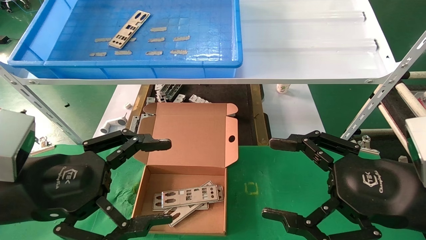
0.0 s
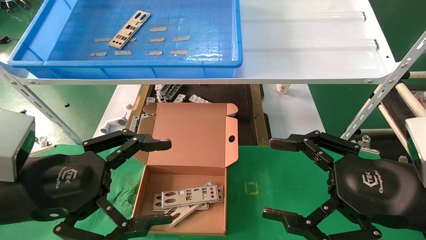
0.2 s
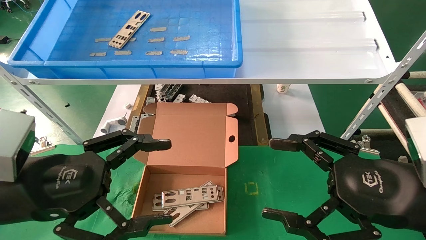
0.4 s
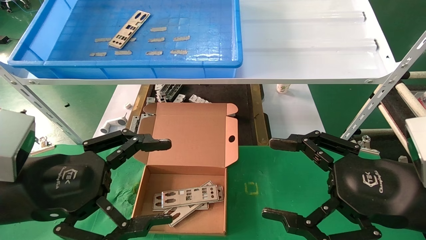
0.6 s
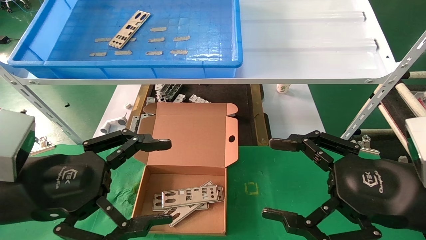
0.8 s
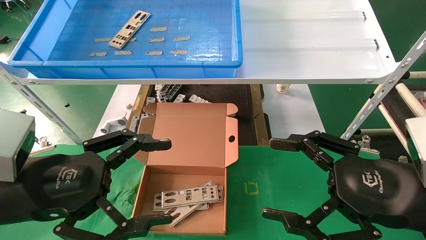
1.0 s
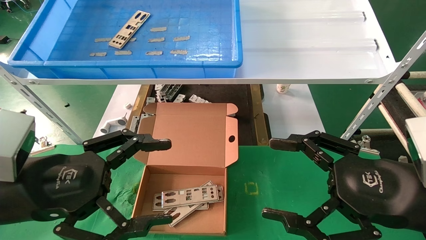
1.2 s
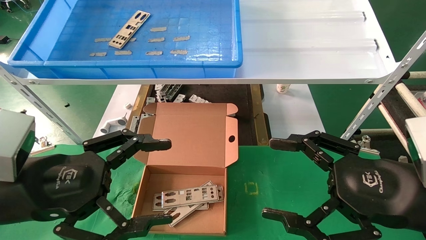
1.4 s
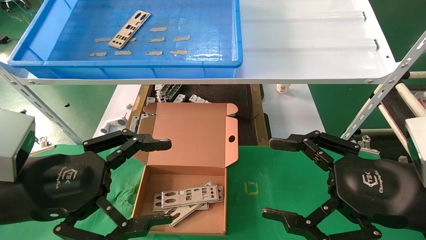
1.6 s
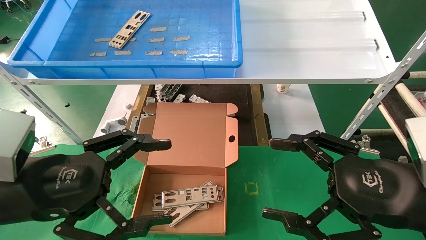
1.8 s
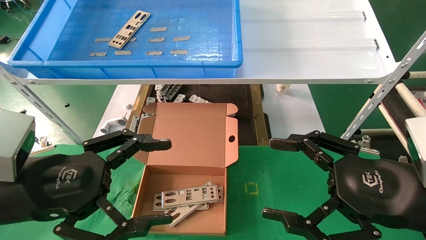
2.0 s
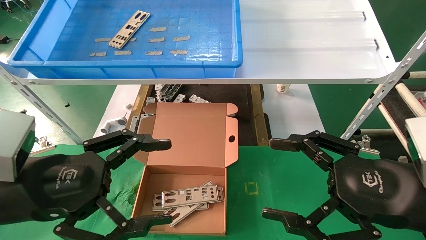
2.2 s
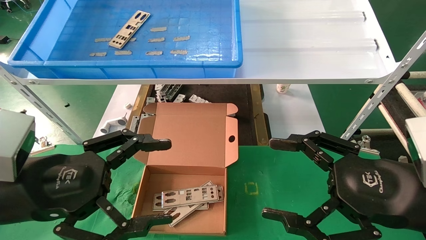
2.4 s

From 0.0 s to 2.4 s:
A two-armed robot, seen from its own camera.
Task of the whole recording: pick up the parts on the tray and put them in the cardboard box.
From 0.0 s to 2.4 s: Both grippers stay about where they are.

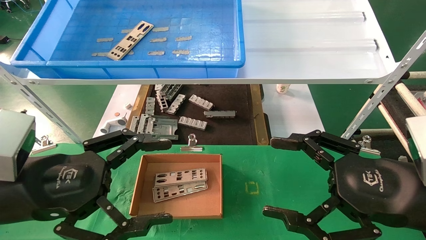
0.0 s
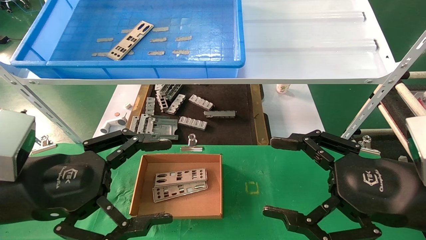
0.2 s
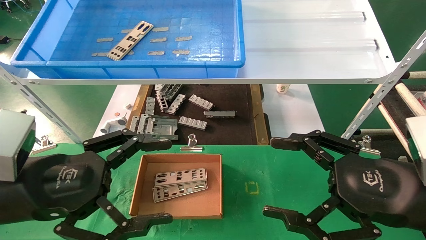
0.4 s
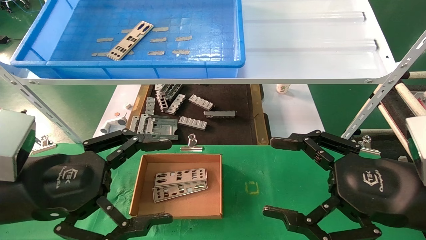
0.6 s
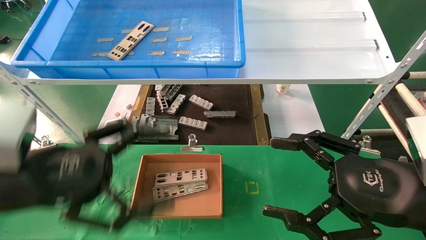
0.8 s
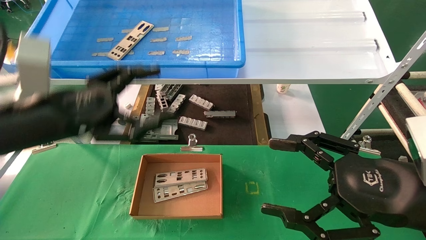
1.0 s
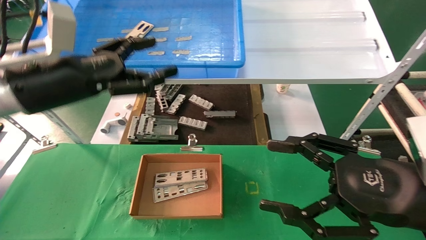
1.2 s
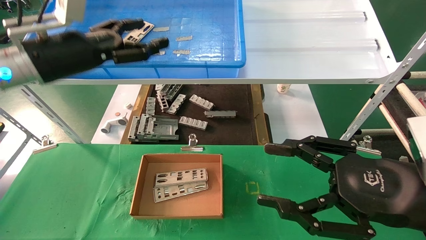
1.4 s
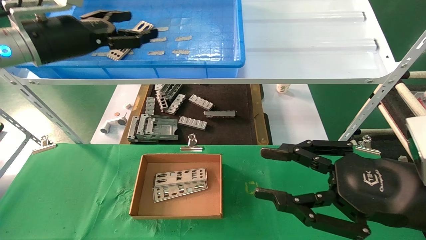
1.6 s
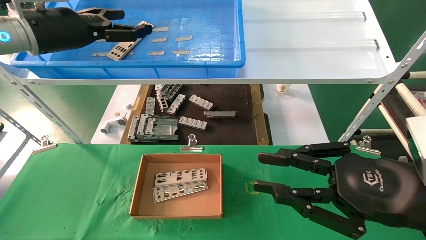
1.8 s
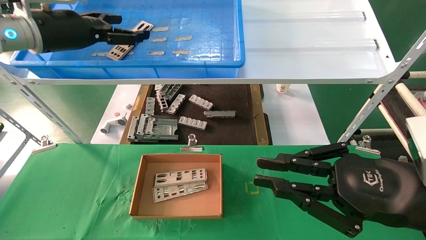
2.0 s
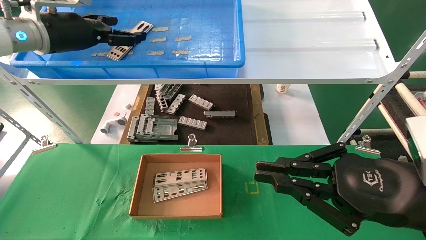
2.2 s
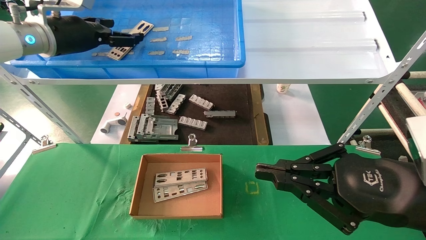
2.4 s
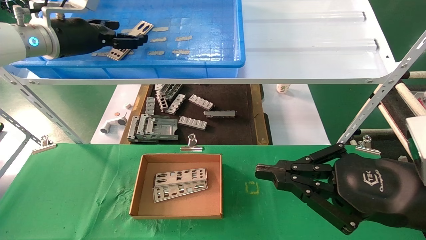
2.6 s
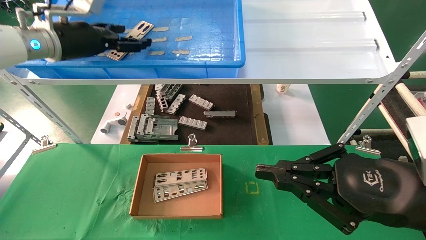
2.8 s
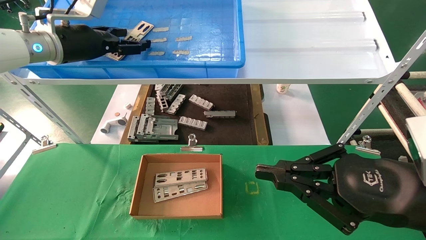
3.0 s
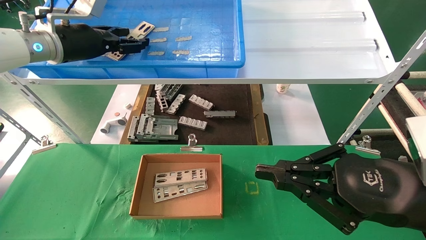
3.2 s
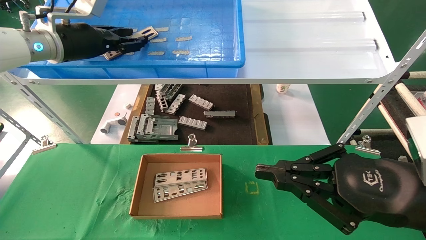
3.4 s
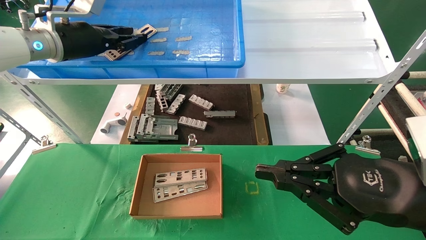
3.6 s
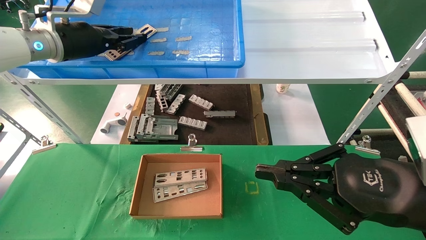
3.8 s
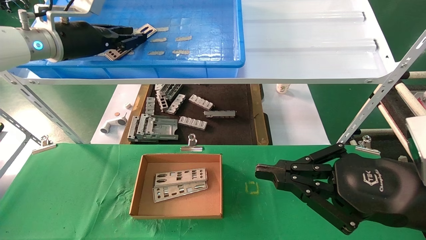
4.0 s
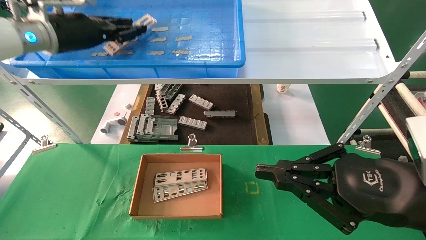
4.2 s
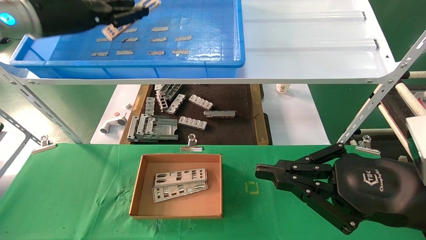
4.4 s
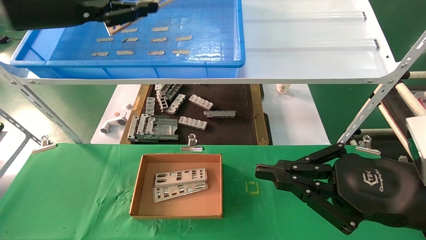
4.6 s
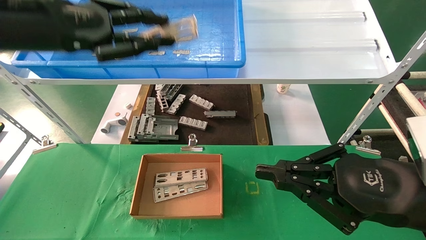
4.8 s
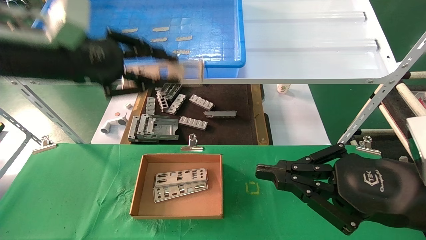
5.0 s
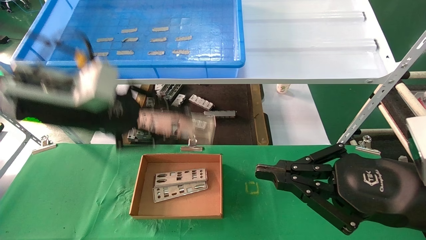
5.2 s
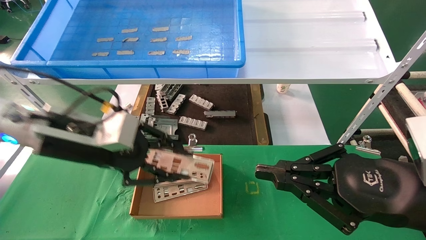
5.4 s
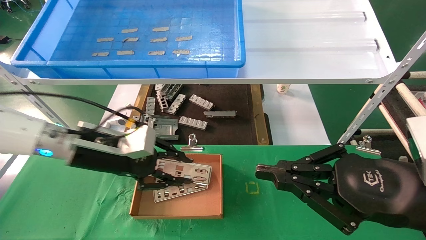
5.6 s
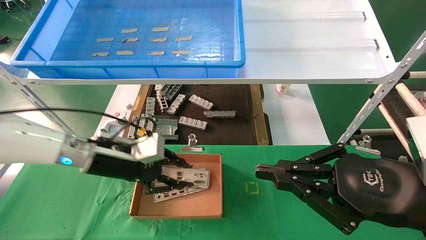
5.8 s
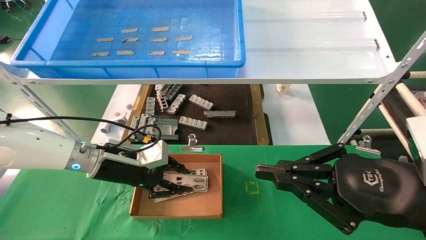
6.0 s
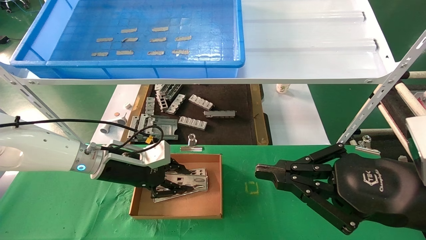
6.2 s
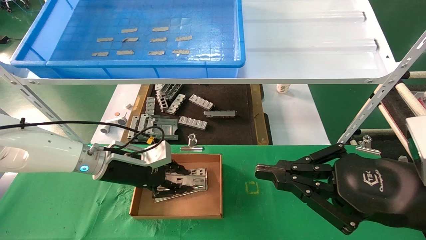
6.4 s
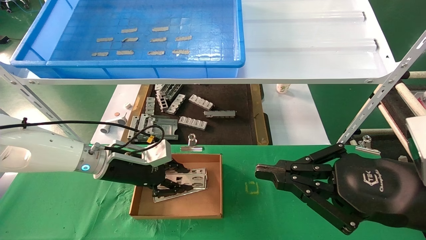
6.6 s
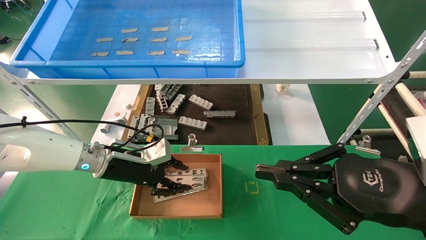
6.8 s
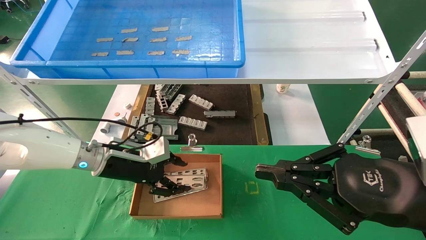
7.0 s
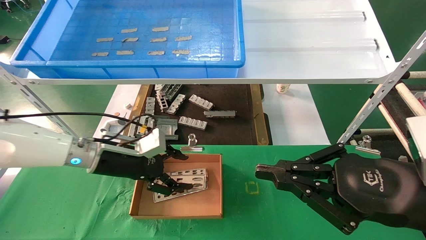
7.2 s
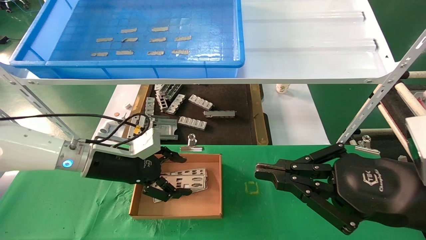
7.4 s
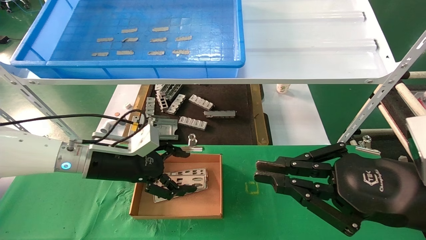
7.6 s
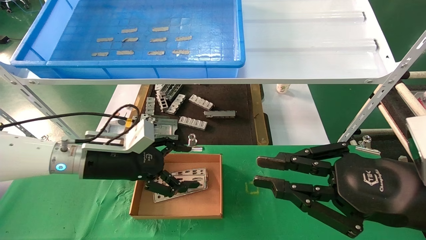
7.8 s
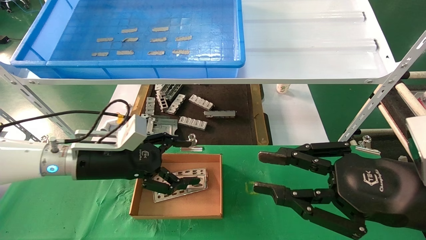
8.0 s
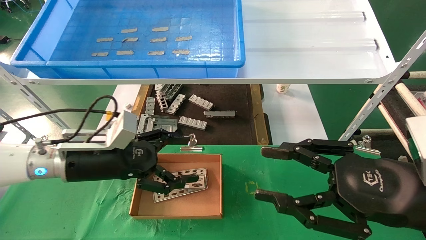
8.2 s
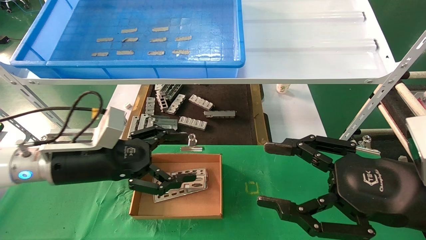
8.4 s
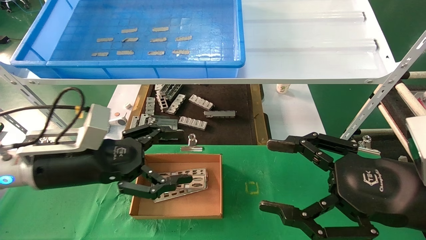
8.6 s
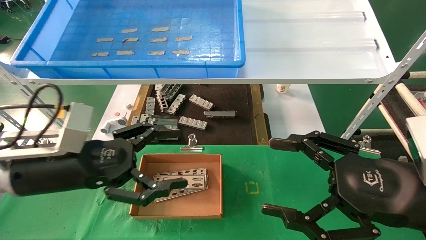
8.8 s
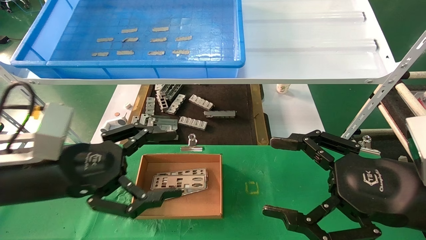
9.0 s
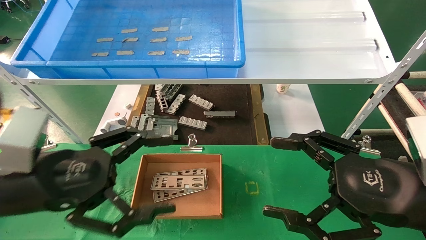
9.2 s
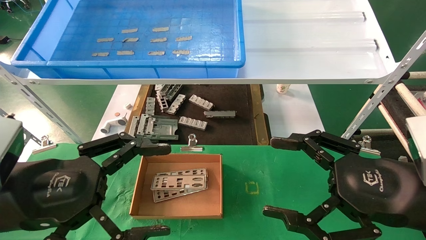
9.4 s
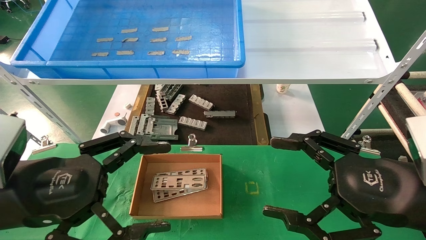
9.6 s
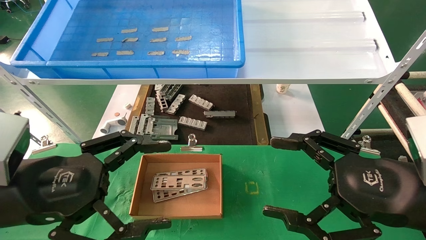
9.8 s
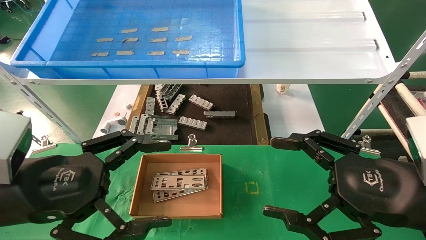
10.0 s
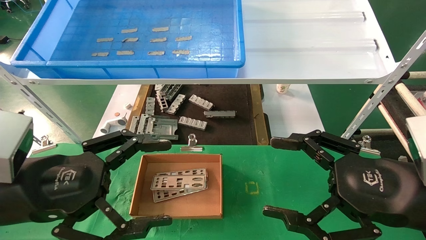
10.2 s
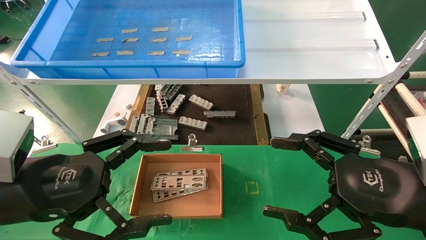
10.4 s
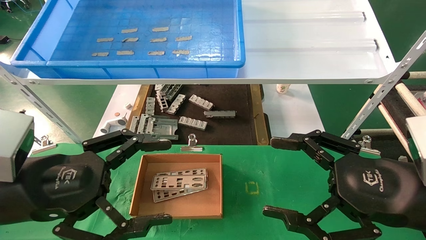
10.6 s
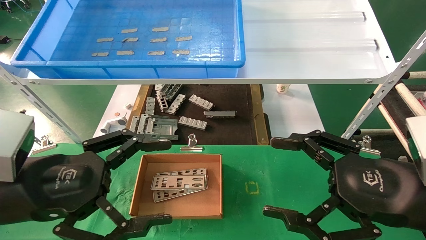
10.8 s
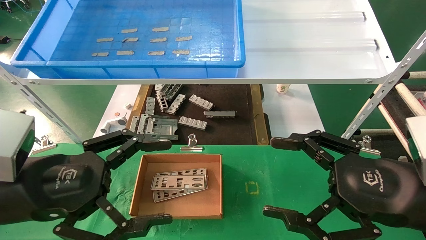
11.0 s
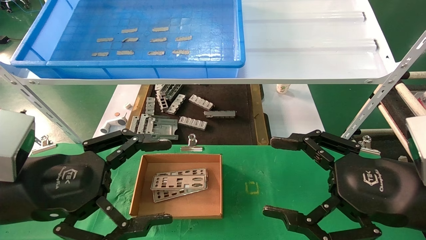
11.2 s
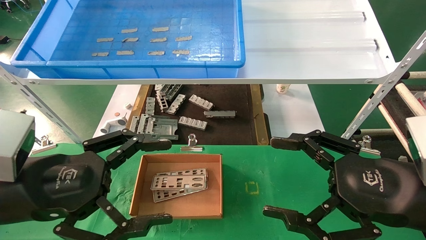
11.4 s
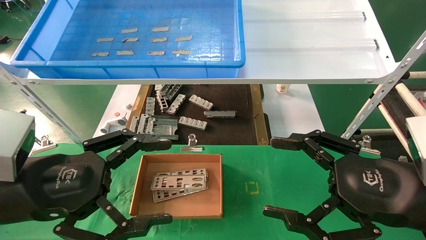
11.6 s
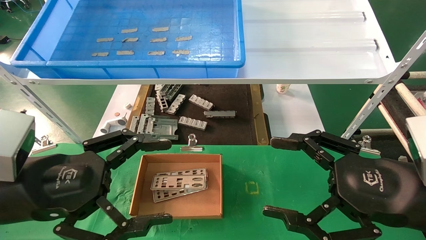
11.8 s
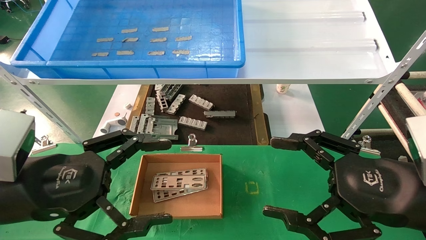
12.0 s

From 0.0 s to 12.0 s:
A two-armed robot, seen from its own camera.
Task of the whole recording: pick up the parts on the tray and put them in the cardboard box.
Step, from 1.2 s to 4.2 s: Pick up the IO bracket from the container box.
Step, from 4.4 s to 7.0 s: Place the IO bracket into the ingredient slot.
From 0.0 s to 1.6 s: The left gripper is displaced forward and upward by some 25 cm; the right gripper closes up.
From 1.6 s to 3.0 s: The left gripper heads forward, covering some 5 cm, while the right gripper closes.
From 3.0 s to 4.4 s: The left gripper shifts by roughly 5 cm, and closes up.
From 4.4 s to 6.0 s: The left gripper moves downward, roughly 25 cm.
From 6.0 s to 7.6 s: The left gripper opens up.
From 7.6 s to 9.0 s: The left gripper moves backward, about 15 cm, while the right gripper opens.
From 9.0 s to 10.4 s: The grippers move only a little.
From 10.4 s to 12.0 s: Neither gripper changes place.

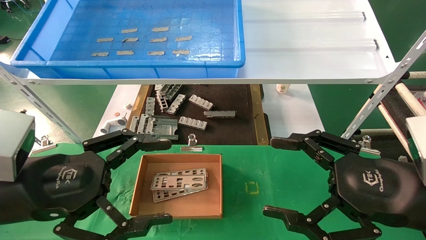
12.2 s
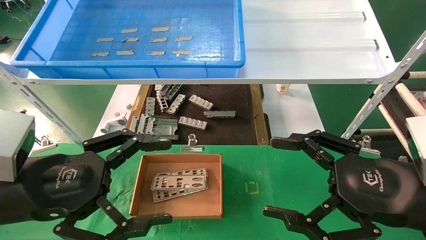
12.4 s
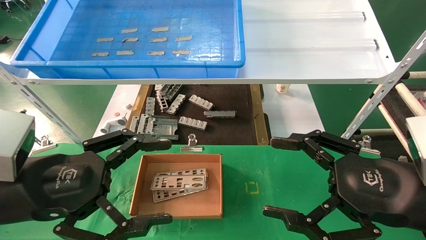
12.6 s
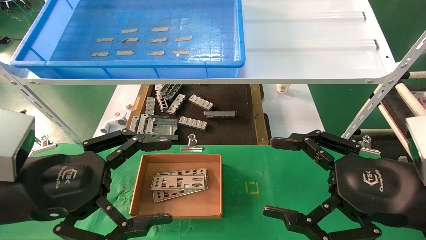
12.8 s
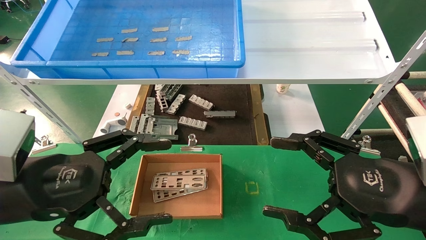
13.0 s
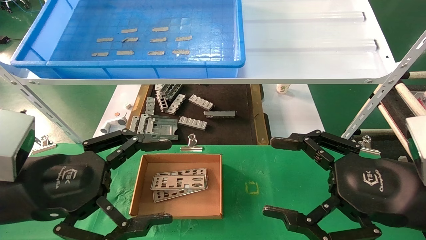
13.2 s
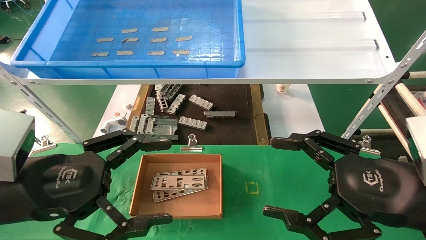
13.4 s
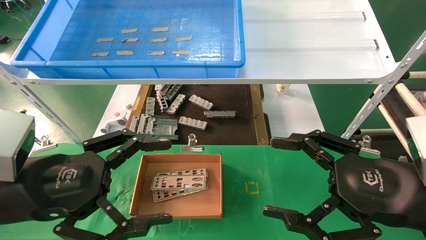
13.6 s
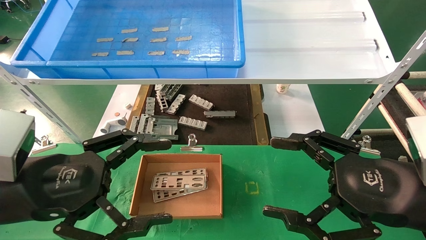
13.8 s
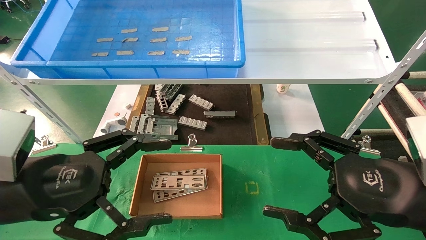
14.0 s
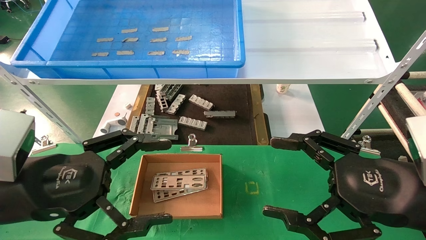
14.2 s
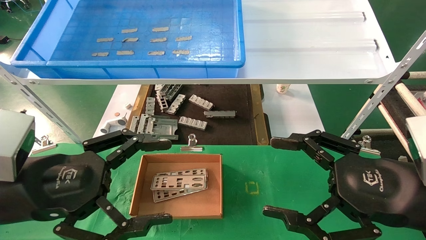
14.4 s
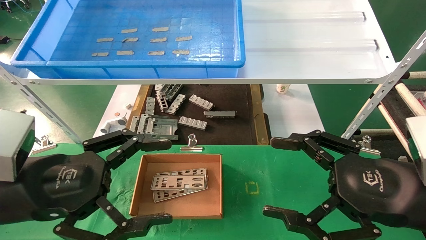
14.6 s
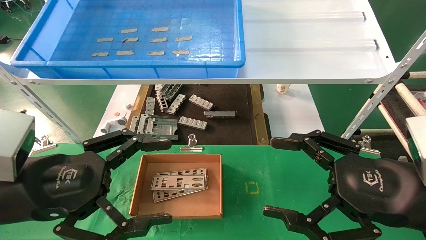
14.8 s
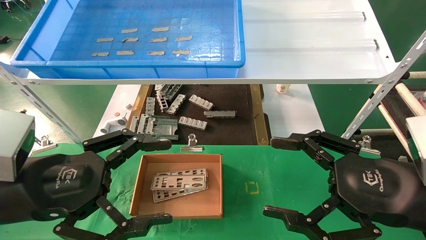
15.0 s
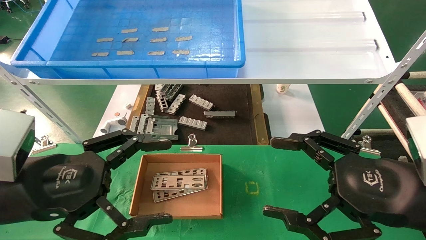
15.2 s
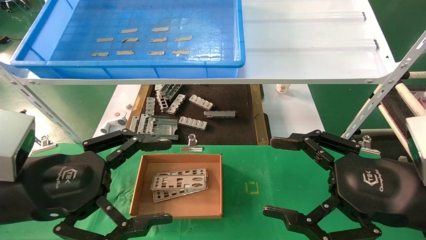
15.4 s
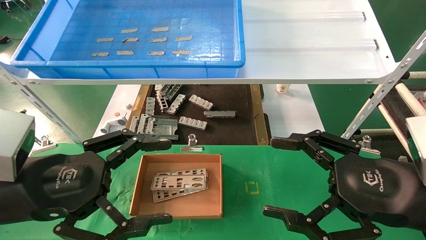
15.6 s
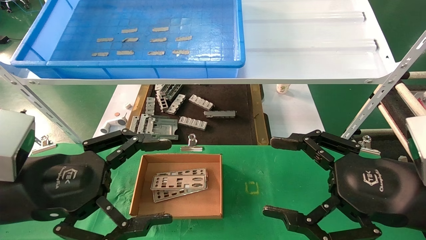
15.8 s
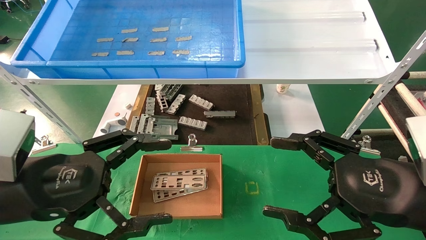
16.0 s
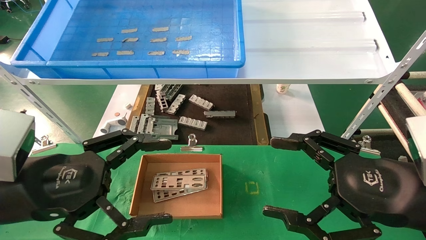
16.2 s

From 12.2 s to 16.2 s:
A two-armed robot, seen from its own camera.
Task of the whole recording: pick up the parts on the tray and put them in the cardboard box.
From 12.2 s to 16.2 s: Both grippers stay about where they are.
